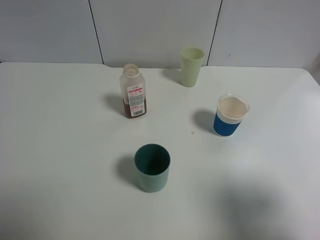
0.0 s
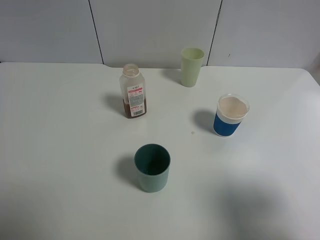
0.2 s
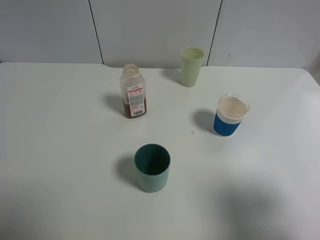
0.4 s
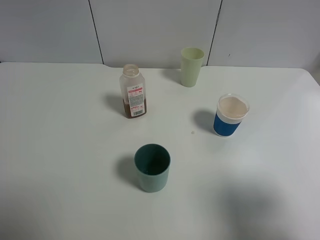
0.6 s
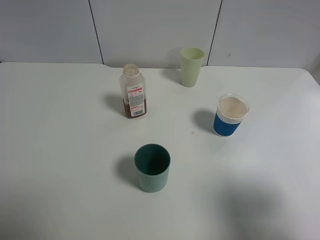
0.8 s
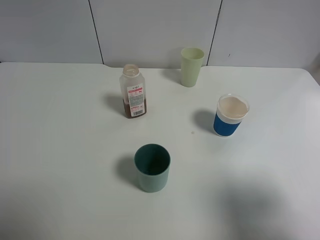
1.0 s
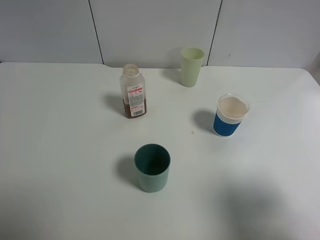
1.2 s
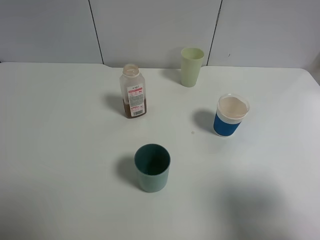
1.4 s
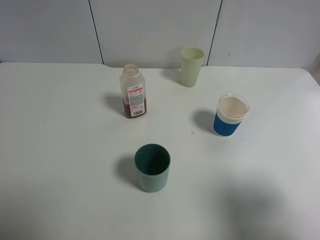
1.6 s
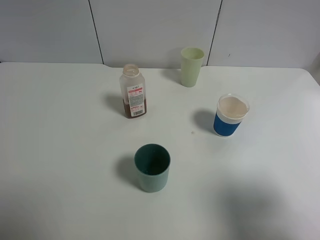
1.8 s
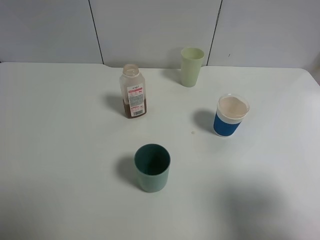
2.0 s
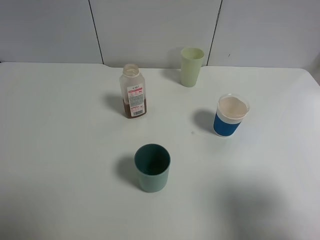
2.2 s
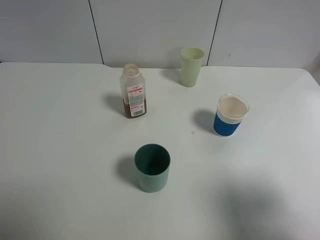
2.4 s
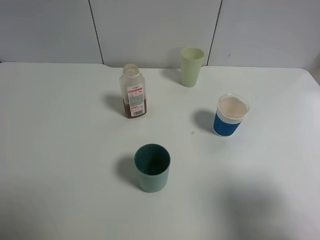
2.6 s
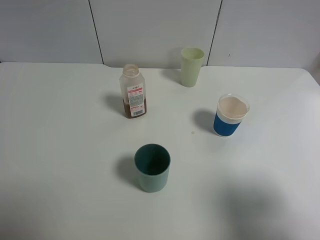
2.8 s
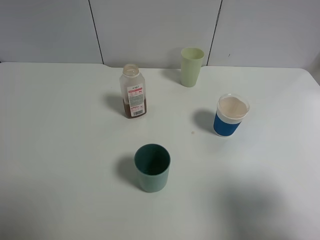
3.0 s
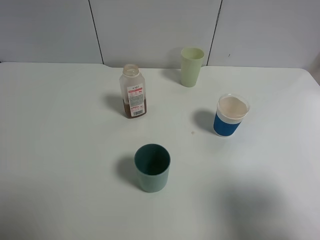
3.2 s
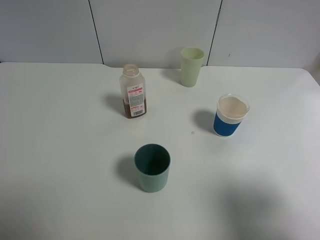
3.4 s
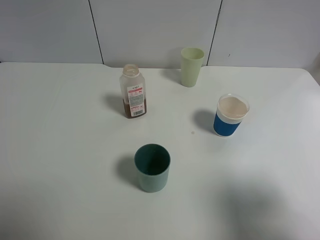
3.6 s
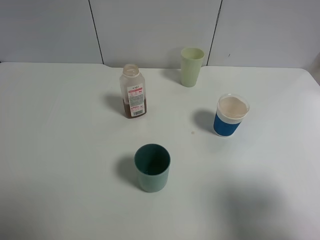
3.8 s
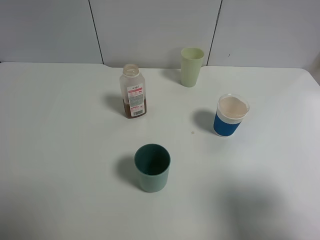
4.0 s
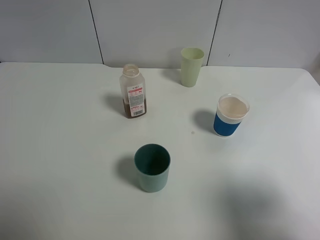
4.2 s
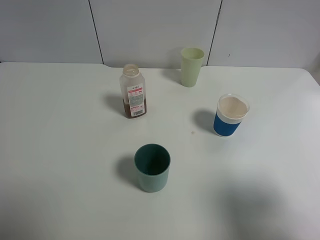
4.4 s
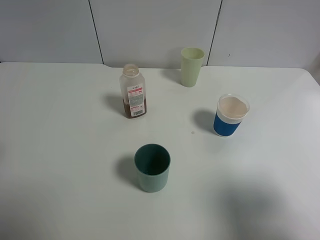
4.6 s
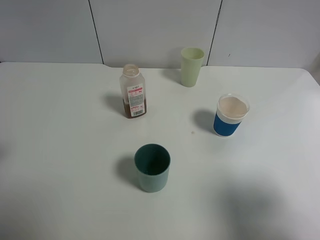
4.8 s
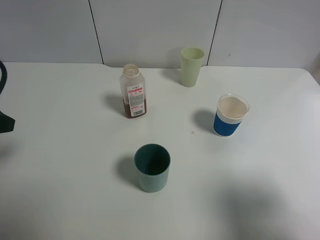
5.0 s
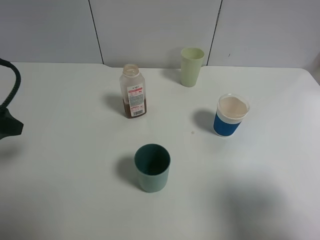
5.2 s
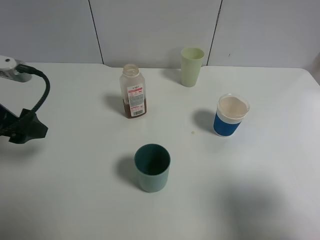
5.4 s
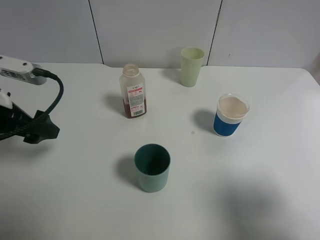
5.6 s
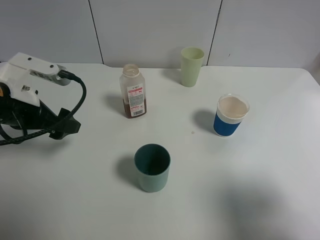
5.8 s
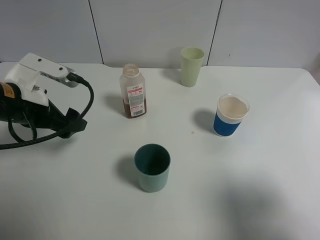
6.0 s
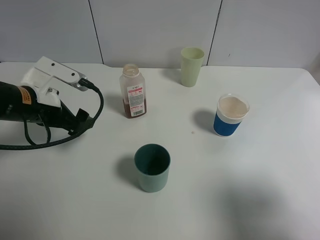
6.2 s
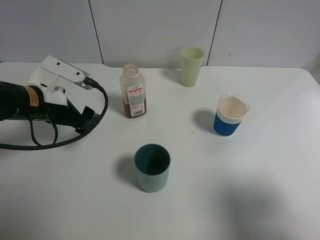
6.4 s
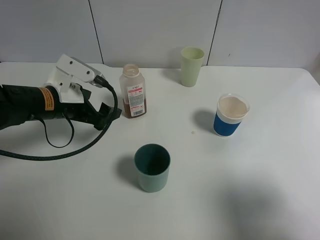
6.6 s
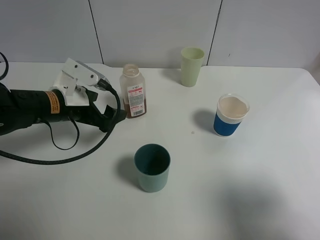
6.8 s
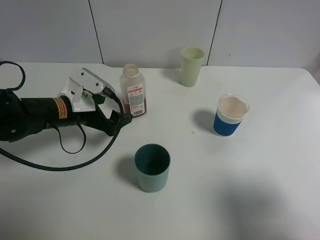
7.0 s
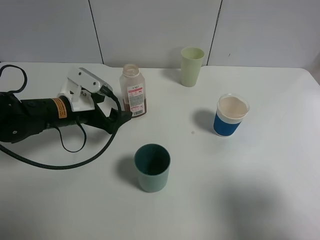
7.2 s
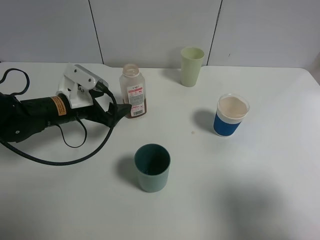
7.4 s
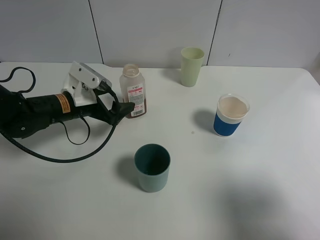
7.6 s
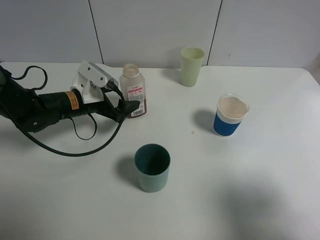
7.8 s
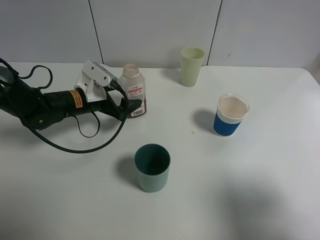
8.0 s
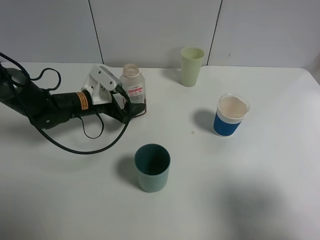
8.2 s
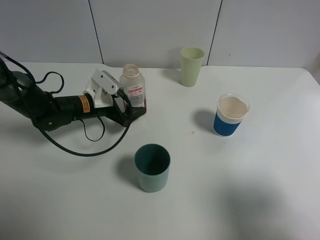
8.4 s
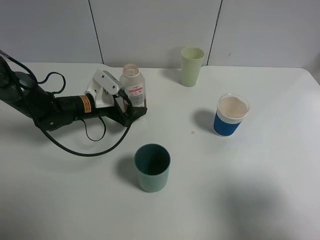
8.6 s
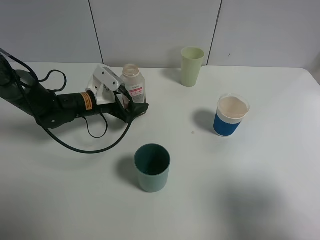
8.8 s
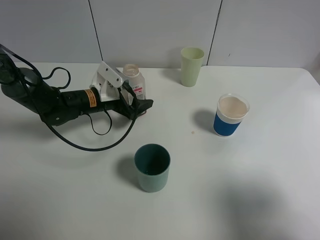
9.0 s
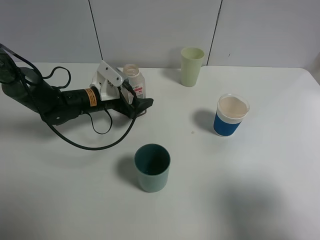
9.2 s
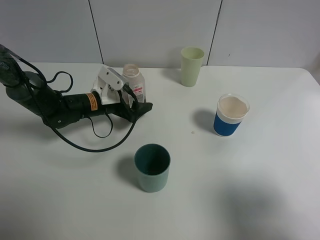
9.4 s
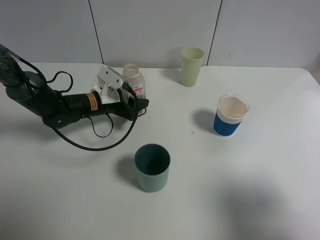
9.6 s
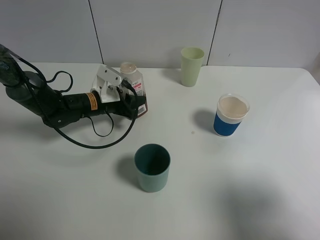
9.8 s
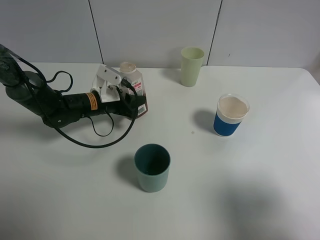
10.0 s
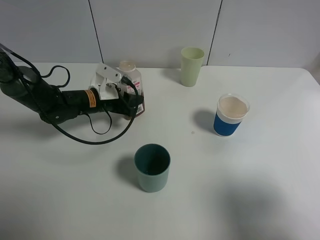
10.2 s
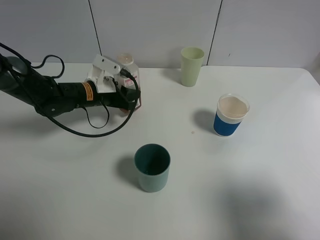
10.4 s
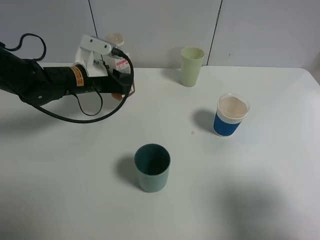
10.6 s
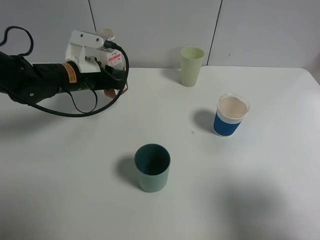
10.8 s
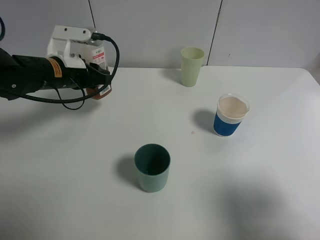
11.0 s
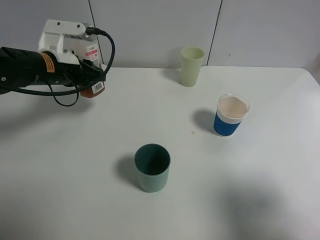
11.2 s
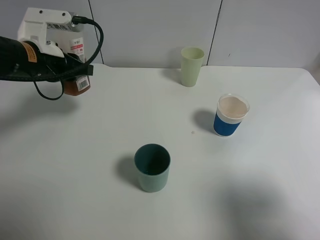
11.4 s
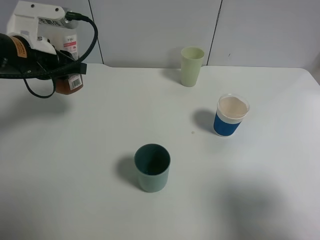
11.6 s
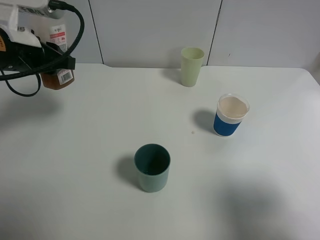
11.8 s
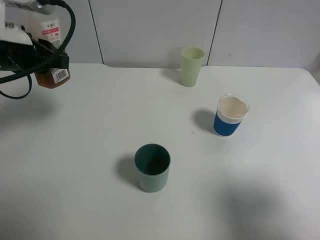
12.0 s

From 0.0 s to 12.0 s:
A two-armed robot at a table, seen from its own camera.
Task of the whole recording: use a gripper to hold the bottle of the drink and pour it into a random cup.
Step, from 0.0 s to 10.0 s: Grasp the cranberry juice bottle with the left gripper.
From 0.0 s to 3.0 s: Both grippers stay put.
From 4.4 s to 6.0 s: The left gripper is displaced forward, downward and to the right by approximately 20 cm.
From 6.0 s to 7.6 s: The left gripper heads downward and forward, covering about 10 cm.
From 7.6 s to 9.0 s: The left gripper shifts some 5 cm forward.
From 9.0 s to 10.4 s: The left gripper closes up.
From 10.4 s to 12.0 s: The left gripper heads upward, backward and to the left, covering approximately 20 cm.

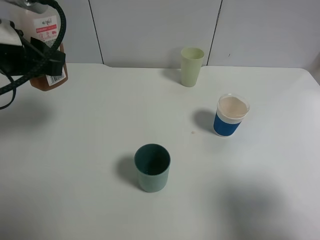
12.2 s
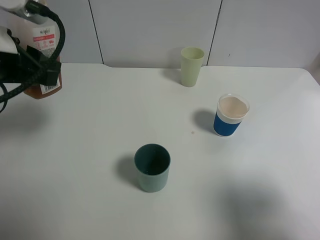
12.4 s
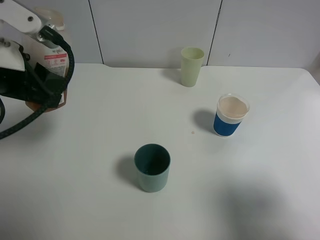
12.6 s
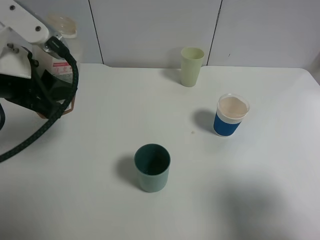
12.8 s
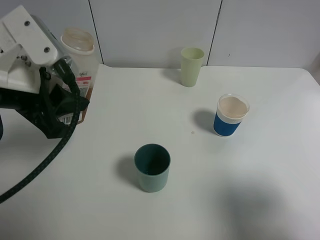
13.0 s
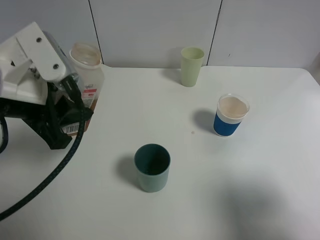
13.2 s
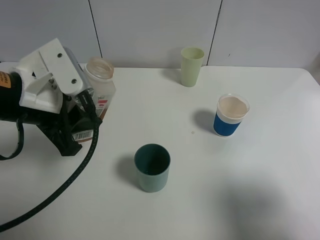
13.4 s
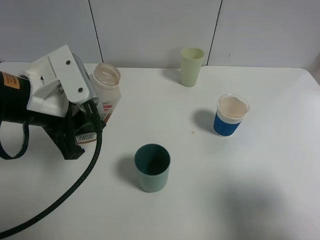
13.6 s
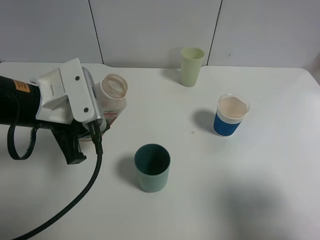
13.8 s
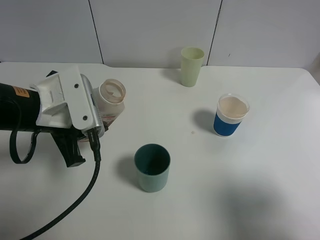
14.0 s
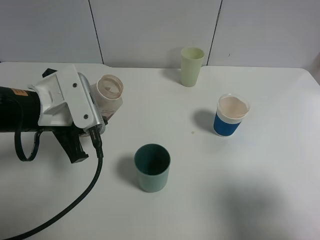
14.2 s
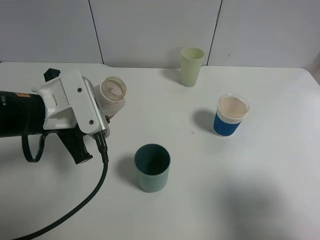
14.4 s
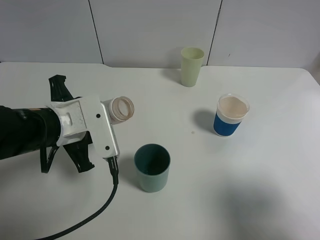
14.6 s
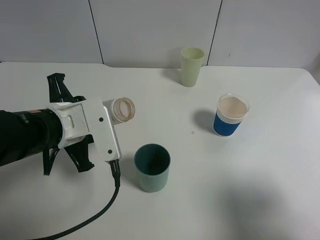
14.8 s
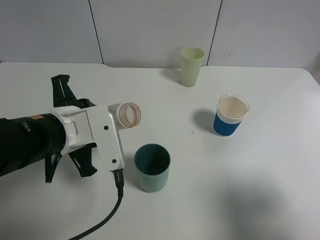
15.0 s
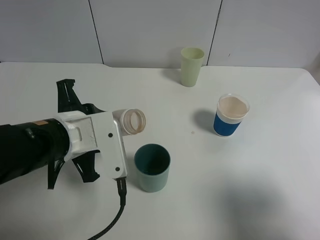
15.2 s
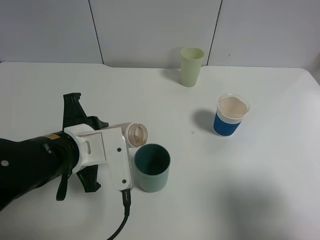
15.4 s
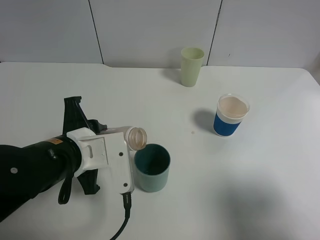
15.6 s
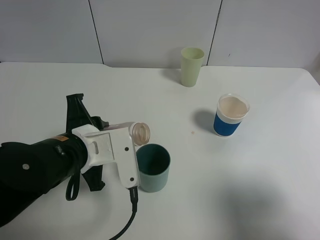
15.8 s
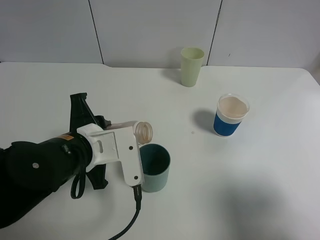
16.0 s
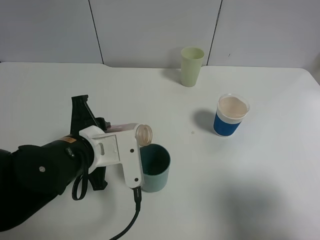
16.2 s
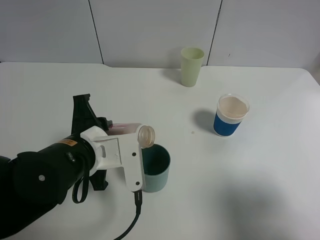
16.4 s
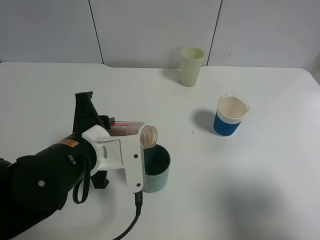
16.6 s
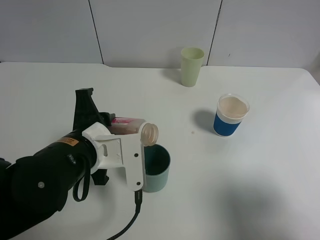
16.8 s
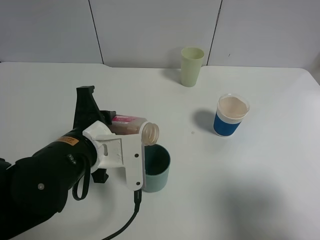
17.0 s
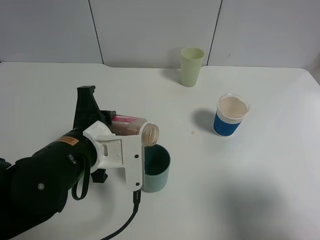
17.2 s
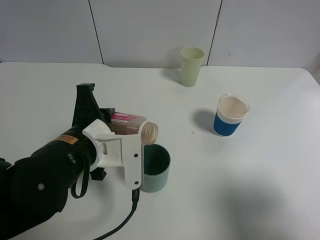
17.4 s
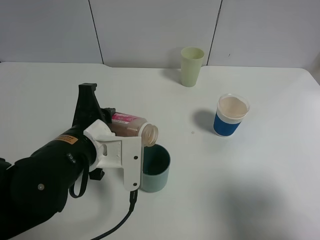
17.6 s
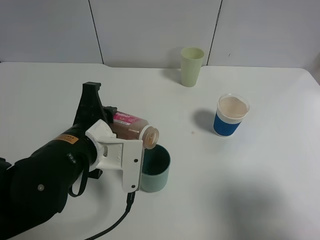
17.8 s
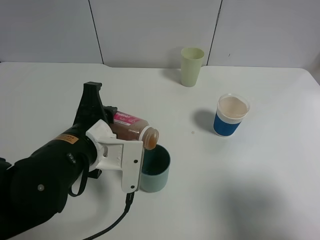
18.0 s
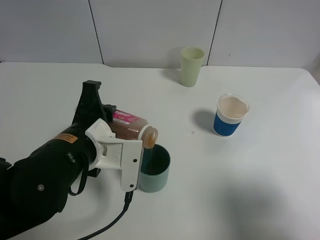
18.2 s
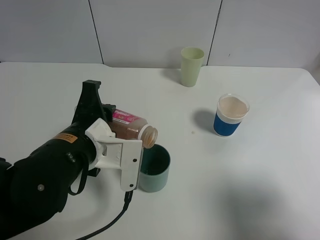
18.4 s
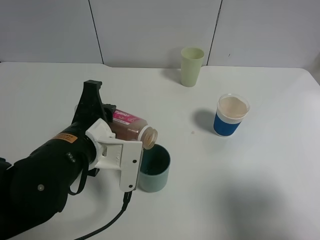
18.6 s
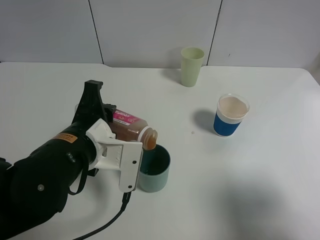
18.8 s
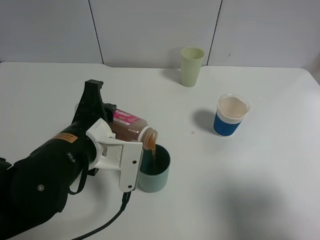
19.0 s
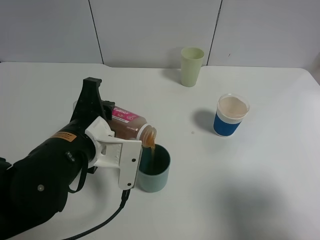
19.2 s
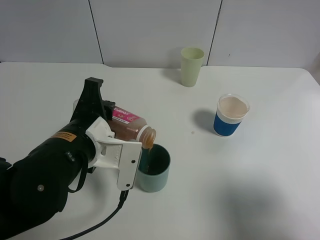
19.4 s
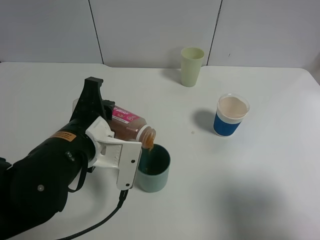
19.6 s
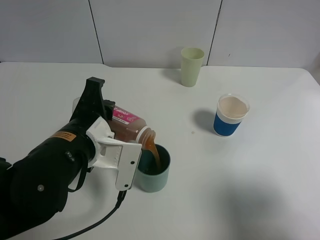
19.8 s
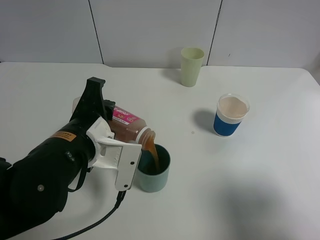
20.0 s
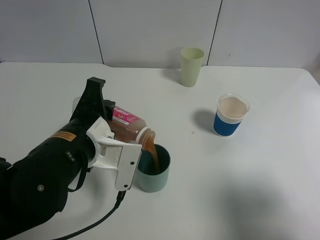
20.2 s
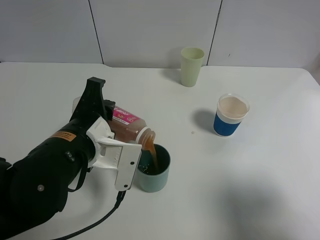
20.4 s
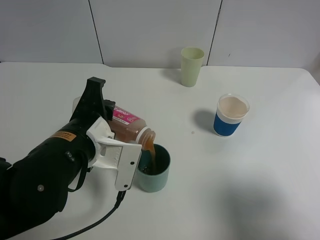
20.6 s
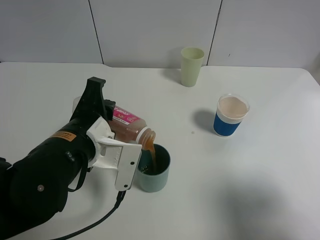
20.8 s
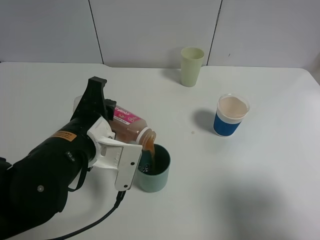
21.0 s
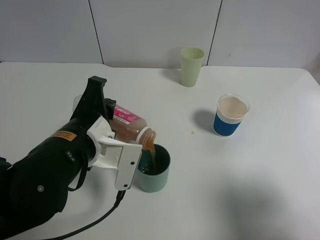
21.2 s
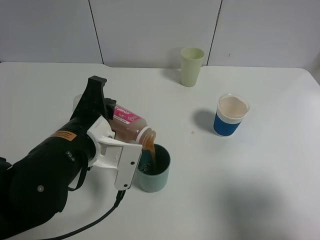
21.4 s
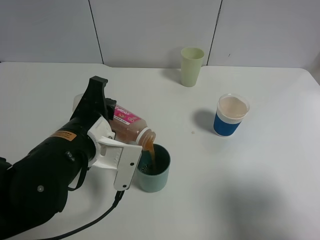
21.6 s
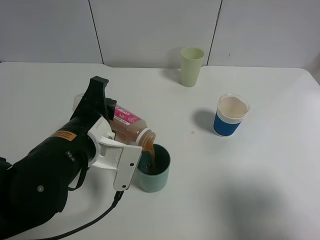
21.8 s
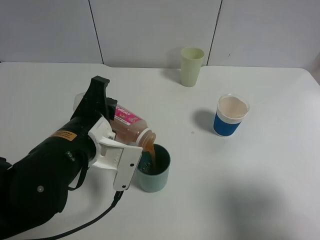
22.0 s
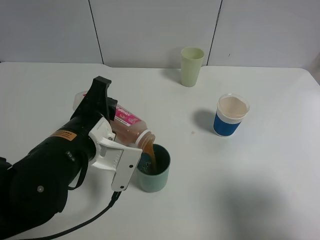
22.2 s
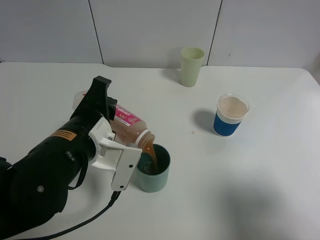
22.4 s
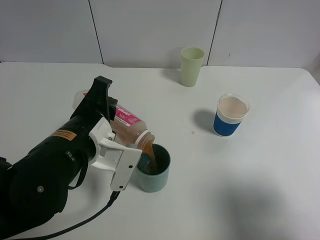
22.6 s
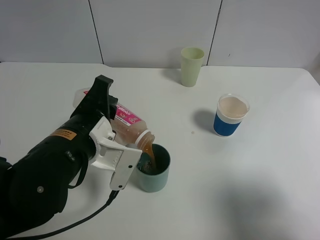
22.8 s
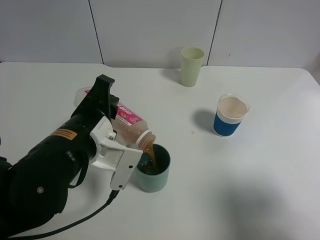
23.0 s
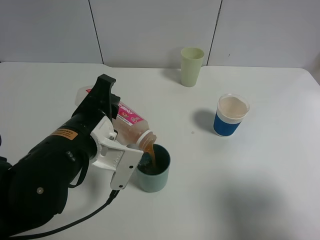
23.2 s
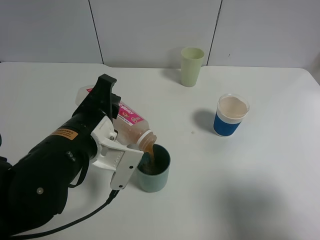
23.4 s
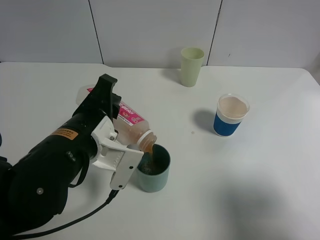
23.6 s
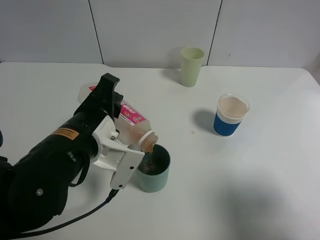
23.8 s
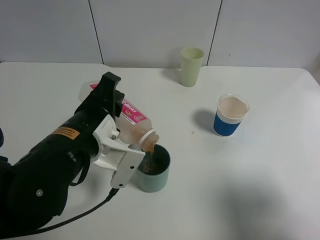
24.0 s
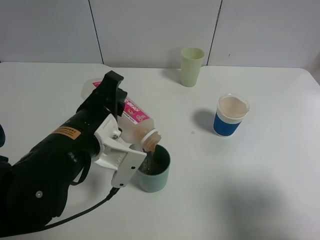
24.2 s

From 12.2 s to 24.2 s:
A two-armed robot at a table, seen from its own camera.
Task of the whole recording: use a gripper to hold the bottle of the drink and pour it into a random cup.
From 12.2 s to 13.8 s: The left gripper is displaced downward and to the right by about 10 cm.
From 13.8 s to 15.2 s: The left gripper shifts by roughly 5 cm.
From 15.2 s to 16.6 s: There are only small adjustments of the grippers.
From 16.6 s to 18.2 s: The grippers move only a little.
From 18.2 s to 19.8 s: The grippers move only a little.
From 19.8 s to 21.2 s: Both grippers stay put.
From 21.2 s to 24.2 s: The grippers stay close to where they were, moving slightly.
